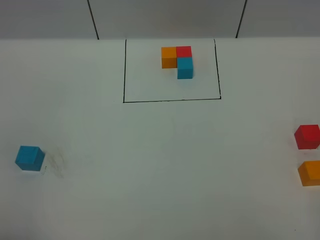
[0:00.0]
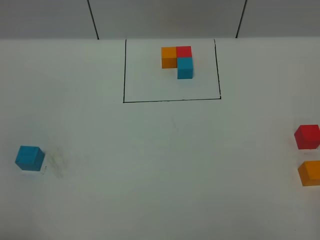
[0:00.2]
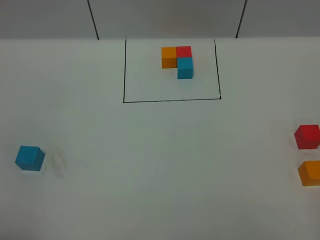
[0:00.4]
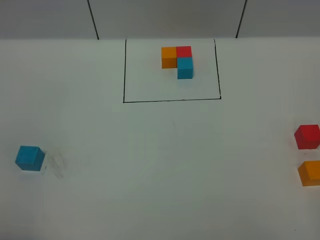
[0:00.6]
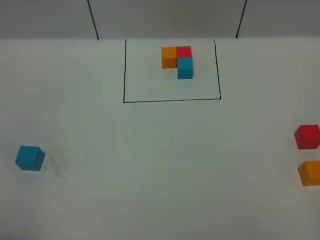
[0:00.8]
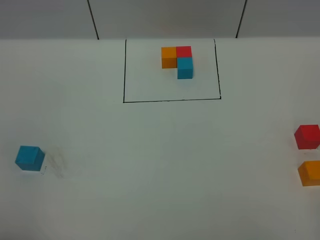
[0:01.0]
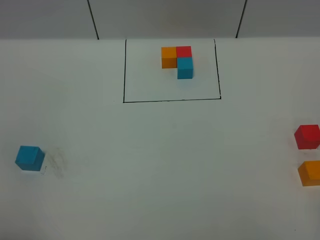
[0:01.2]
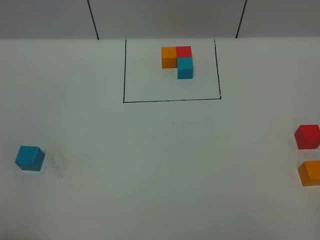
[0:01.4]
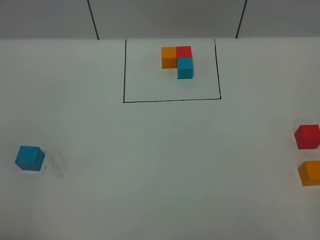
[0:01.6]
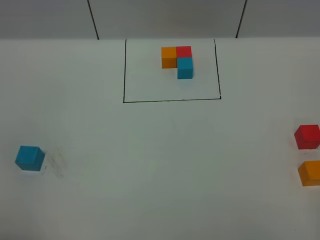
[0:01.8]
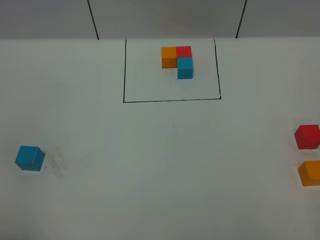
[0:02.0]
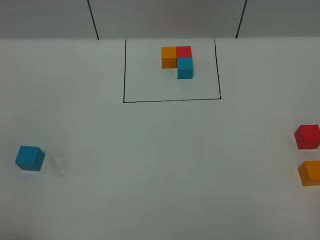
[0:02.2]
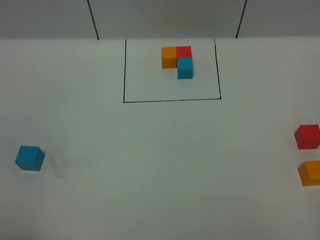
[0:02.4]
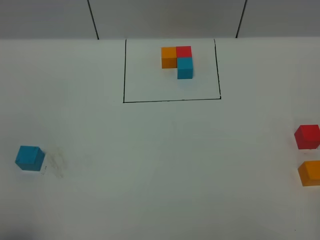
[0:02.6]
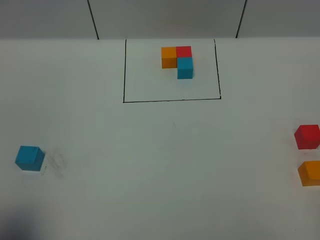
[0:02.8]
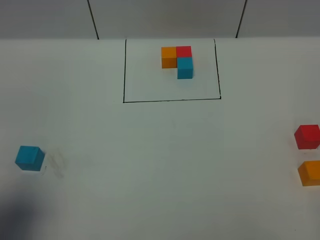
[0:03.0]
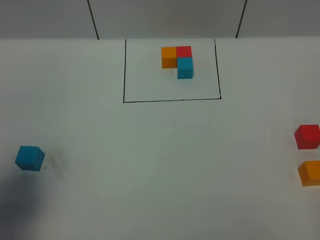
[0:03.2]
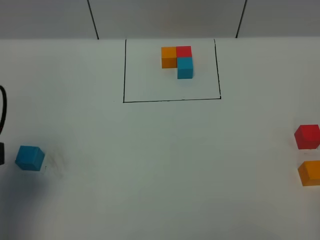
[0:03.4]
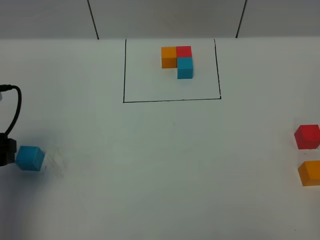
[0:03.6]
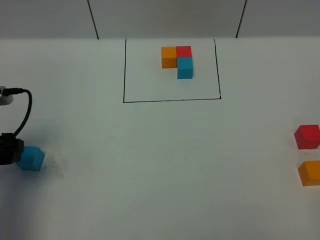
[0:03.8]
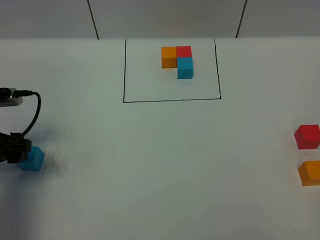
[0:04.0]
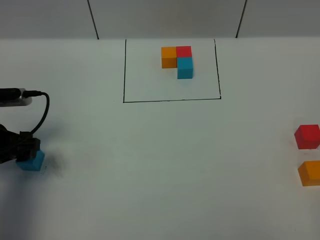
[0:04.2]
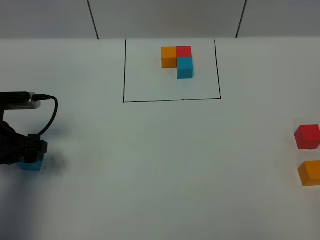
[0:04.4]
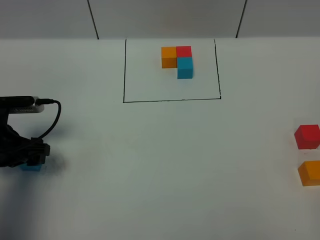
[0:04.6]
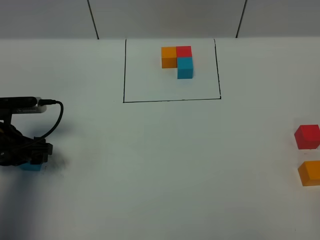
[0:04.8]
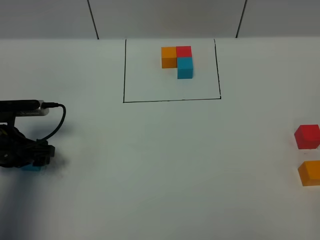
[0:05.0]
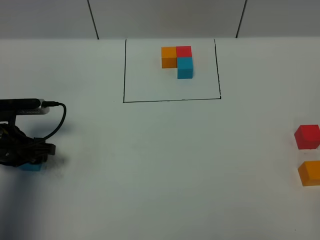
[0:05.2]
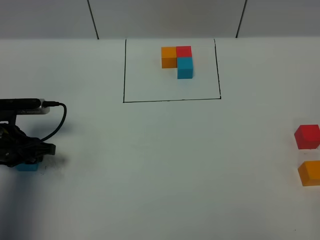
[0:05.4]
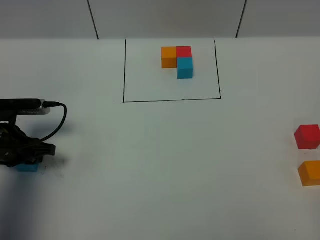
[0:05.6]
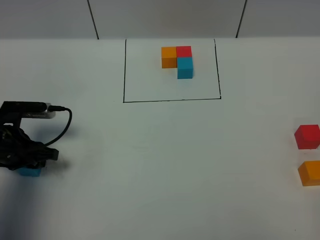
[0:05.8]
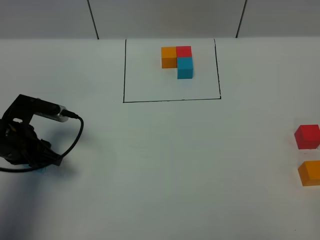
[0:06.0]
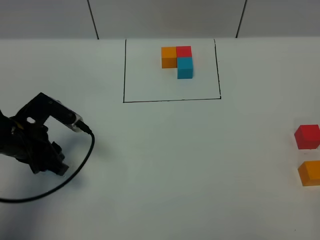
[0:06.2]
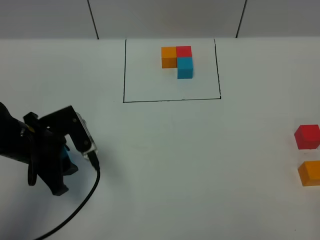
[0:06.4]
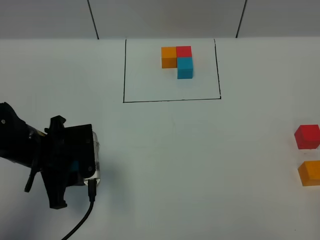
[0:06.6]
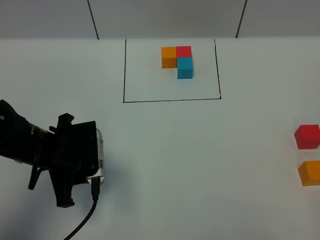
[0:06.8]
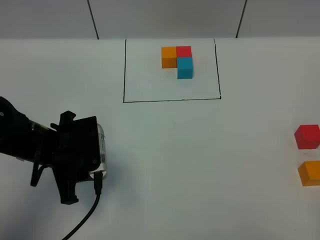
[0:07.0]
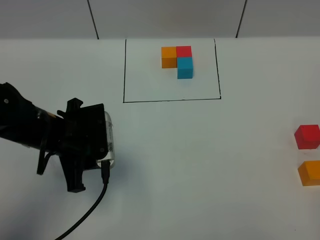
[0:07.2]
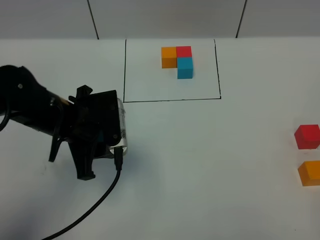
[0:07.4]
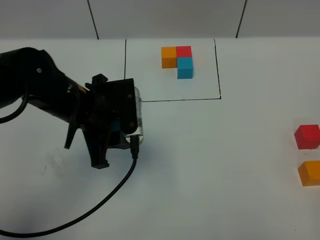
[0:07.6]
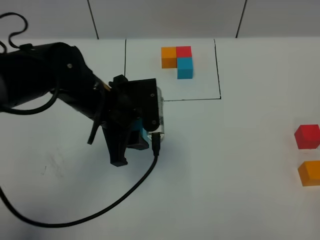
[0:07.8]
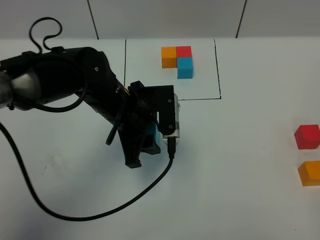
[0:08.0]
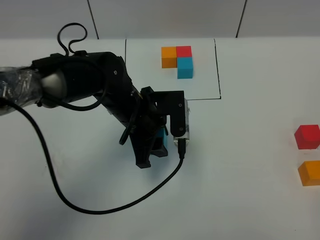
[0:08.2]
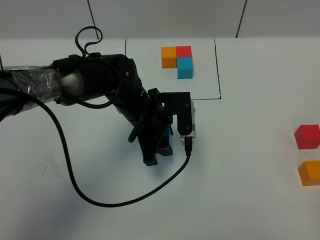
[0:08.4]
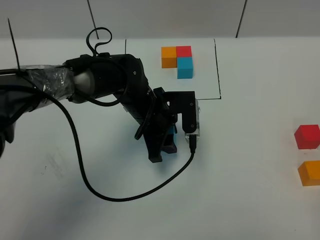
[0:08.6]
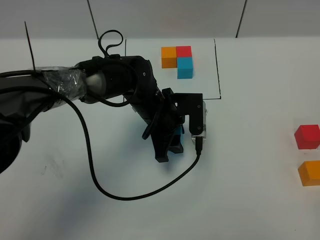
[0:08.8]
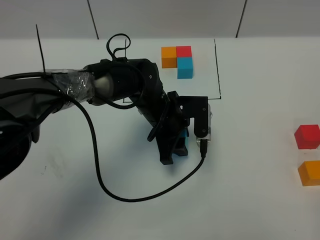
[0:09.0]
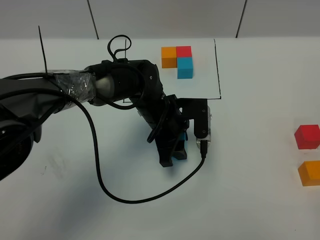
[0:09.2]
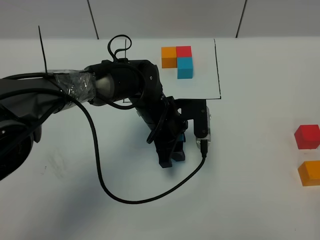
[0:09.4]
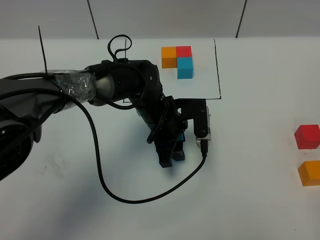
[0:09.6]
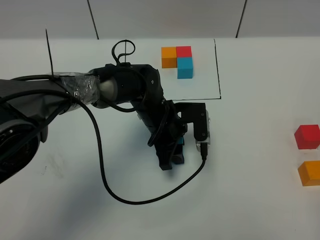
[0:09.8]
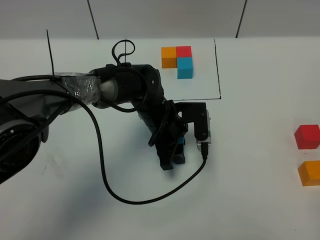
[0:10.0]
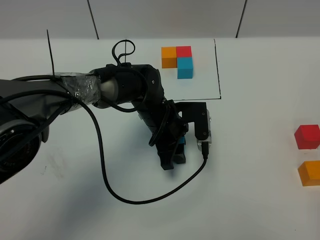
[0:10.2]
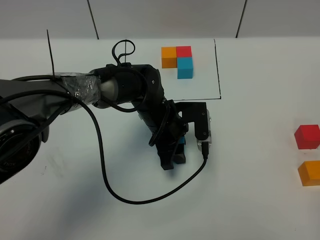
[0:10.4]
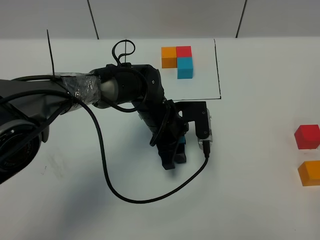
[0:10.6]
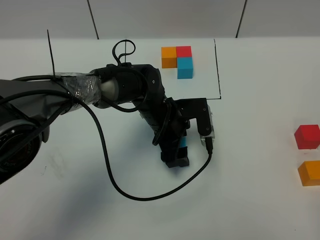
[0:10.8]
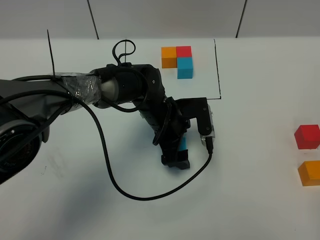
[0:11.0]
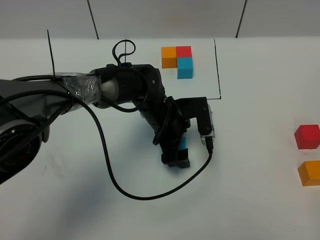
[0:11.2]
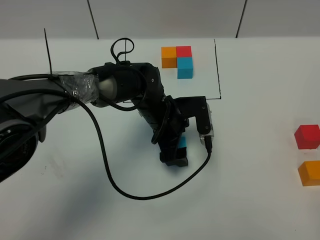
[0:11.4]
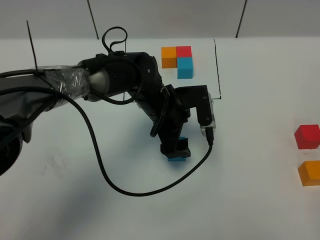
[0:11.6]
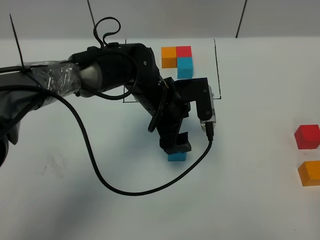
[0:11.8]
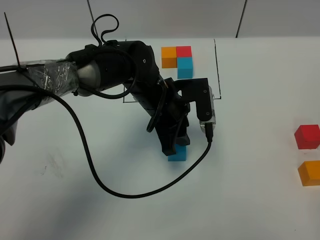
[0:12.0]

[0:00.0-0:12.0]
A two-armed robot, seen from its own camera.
Task of the whole recording: According to the building block template in front, assemble the scattered blocks together.
Step, 0:03.4 to 0:11.8: Put the blue cube in the center of the table.
0:00.0 to 0:01.6: Both grippers stay about where they are.
0:01.6 to 0:03.0: The left gripper heads forward, covering some 10 cm, and opens.
0:03.0 to 0:04.4: The left gripper is displaced forward and downward by some 25 cm.
0:04.4 to 0:06.0: The left gripper closes.
0:06.0 to 0:07.6: The left gripper shifts approximately 15 cm to the right and upward.
0:07.6 to 0:09.0: The left gripper goes about 15 cm to the right, downward and forward.
0:09.0 to 0:10.4: The grippers move only a little.
0:10.4 to 0:12.0: The left gripper heads upward, covering roughly 5 cm, and opens, then closes again.

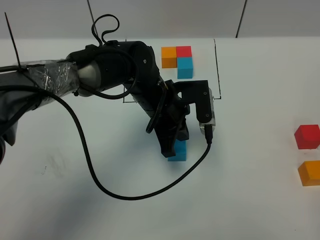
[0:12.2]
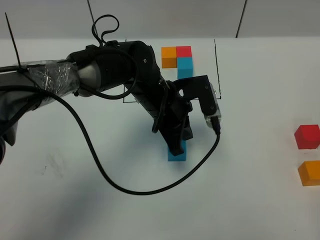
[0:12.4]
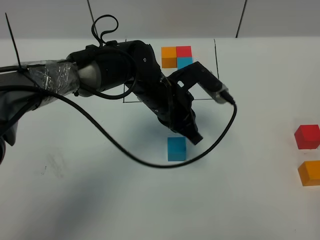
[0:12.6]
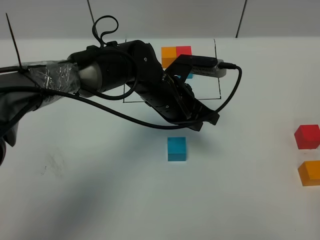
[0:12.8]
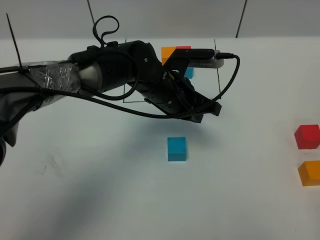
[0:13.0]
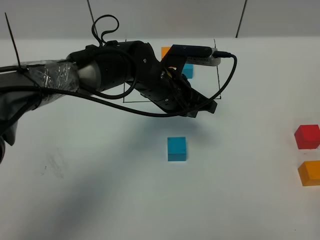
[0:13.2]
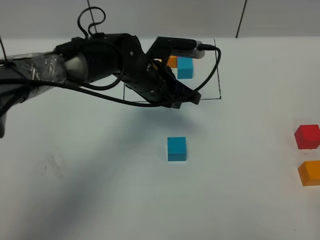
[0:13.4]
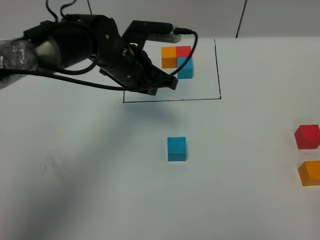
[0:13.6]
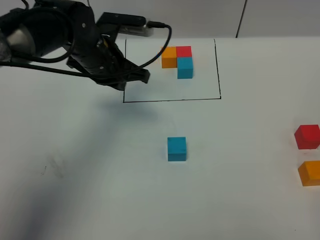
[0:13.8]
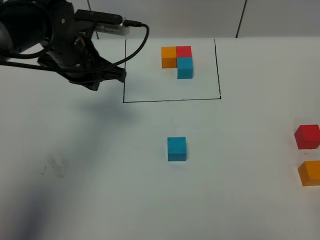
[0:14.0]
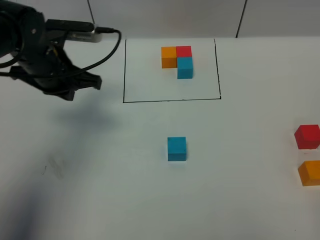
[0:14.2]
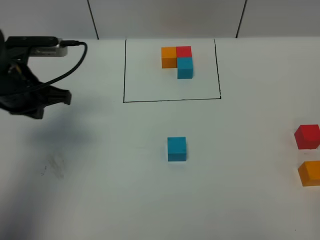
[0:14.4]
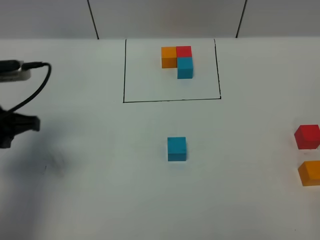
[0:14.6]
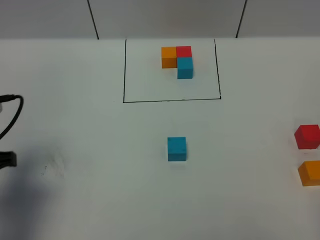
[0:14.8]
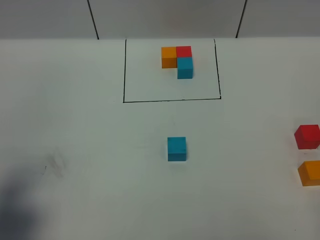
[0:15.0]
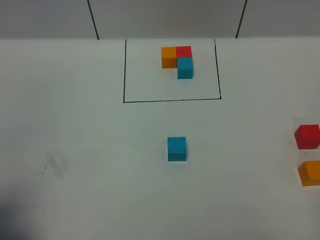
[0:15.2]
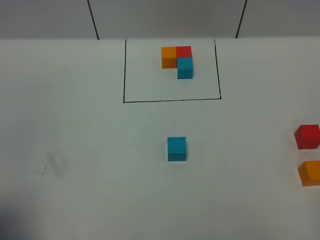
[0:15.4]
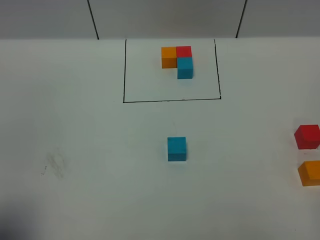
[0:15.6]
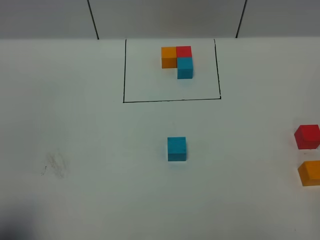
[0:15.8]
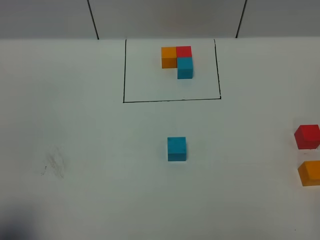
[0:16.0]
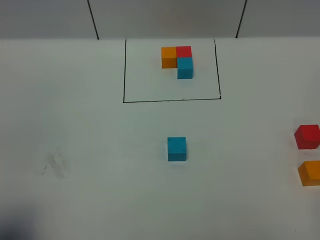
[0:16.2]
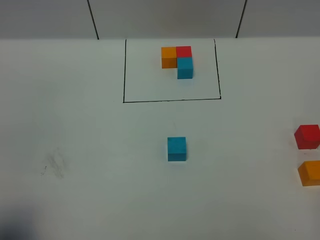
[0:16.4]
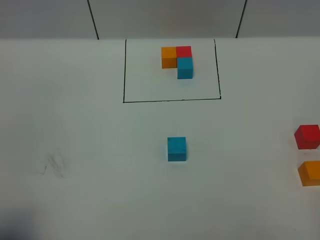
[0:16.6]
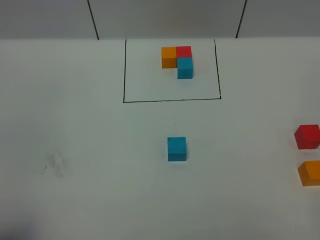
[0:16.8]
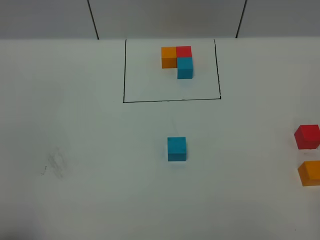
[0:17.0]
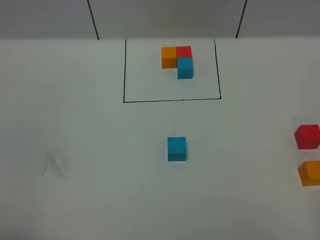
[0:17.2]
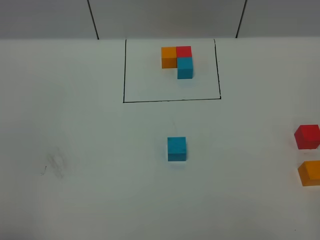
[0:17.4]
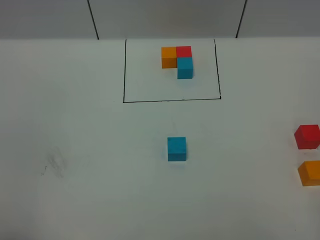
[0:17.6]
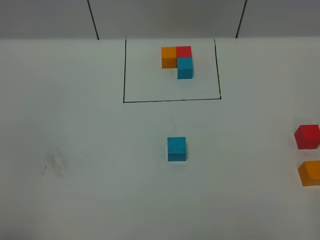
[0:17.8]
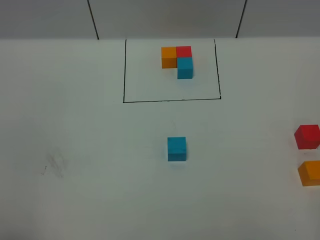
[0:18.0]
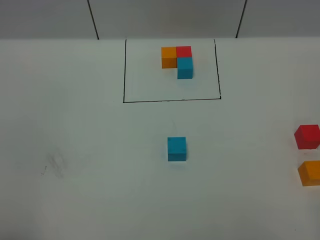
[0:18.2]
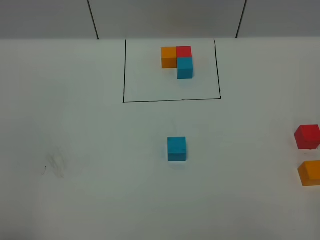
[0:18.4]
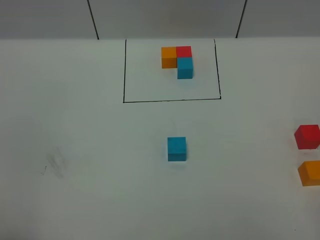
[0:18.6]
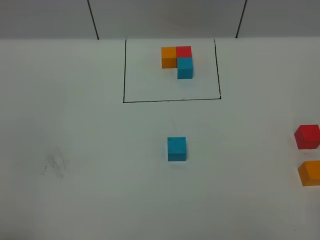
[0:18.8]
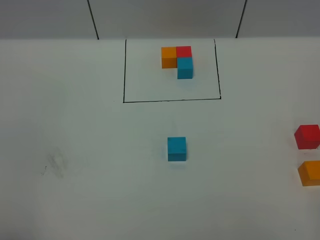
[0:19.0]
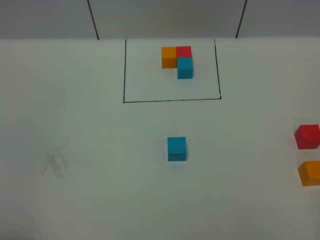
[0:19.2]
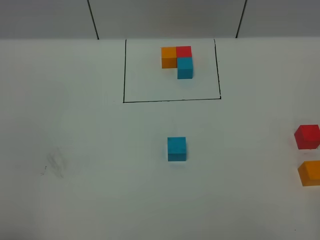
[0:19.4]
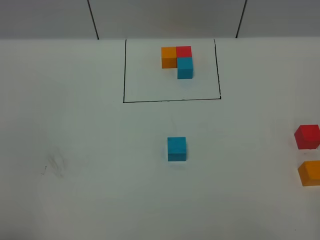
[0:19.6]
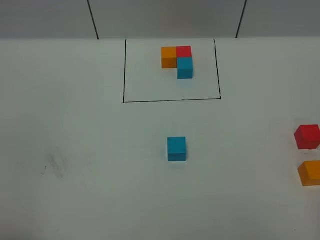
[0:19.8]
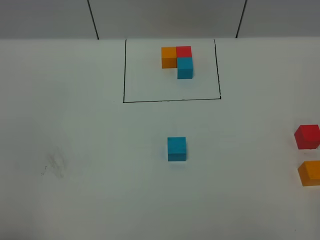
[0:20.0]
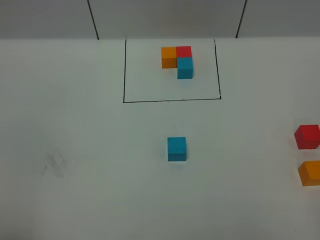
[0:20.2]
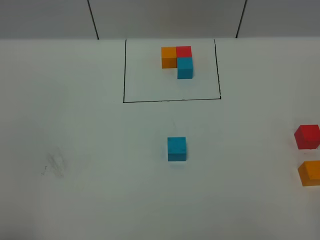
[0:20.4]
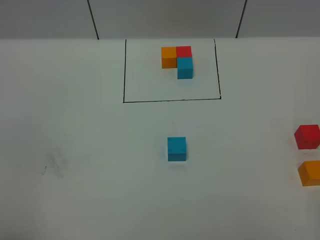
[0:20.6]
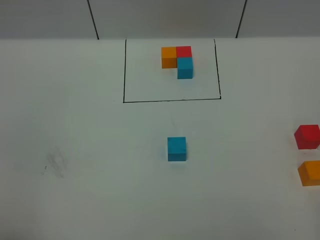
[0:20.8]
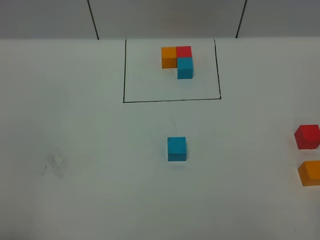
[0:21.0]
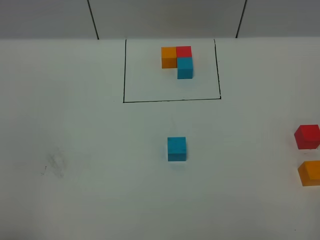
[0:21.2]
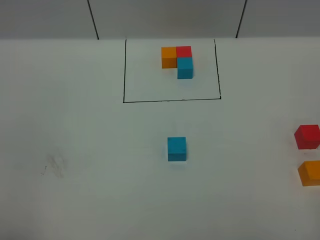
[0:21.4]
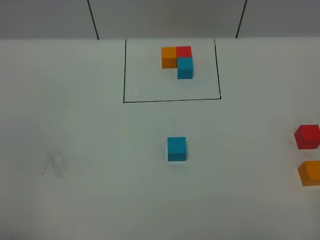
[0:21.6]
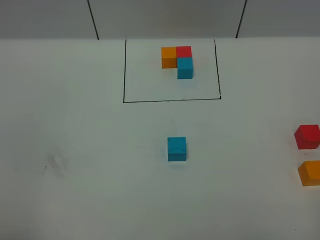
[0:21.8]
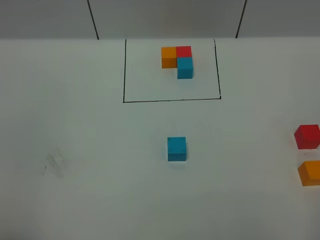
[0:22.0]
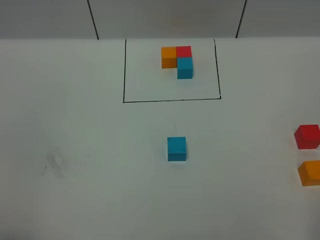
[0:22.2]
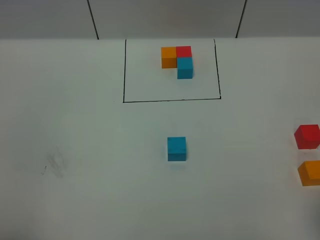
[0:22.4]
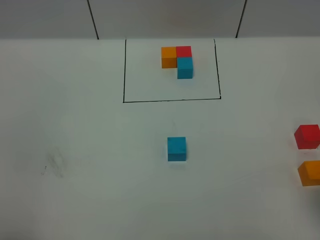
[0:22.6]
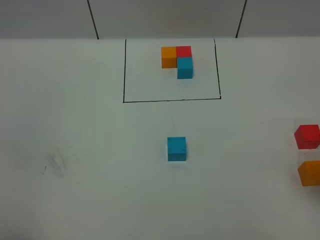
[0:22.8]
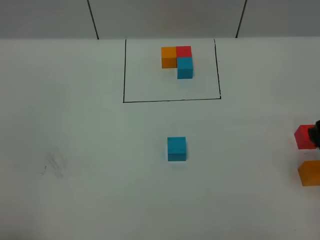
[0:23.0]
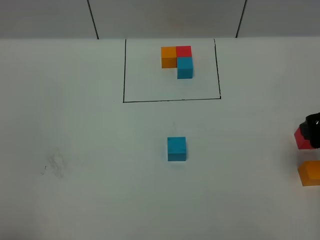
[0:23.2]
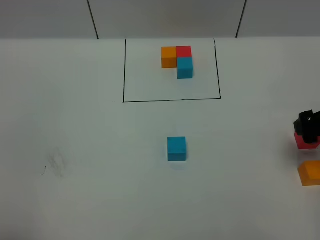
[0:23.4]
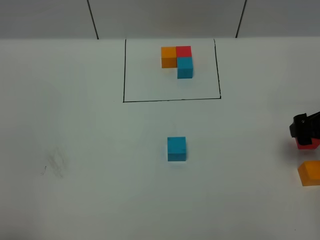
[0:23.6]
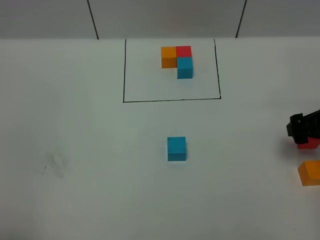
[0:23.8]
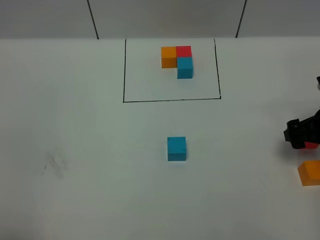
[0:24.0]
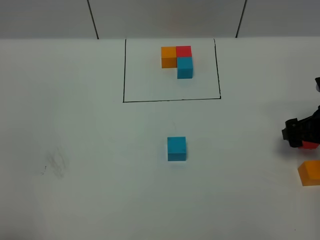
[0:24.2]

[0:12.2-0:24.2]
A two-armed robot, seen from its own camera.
Task of the whole recording: According to the building block template in front, assemble the scattered blocks together.
0:12.2 to 0:13.8: The left gripper travels to the left, upward and forward by roughly 15 cm.
0:13.8 to 0:15.2: The left gripper shifts about 35 cm backward and to the left.
0:18.2 to 0:19.8: Both grippers stay about where they are.
0:22.6 to 0:24.2: The right gripper heads forward and downward, covering some 20 cm.
